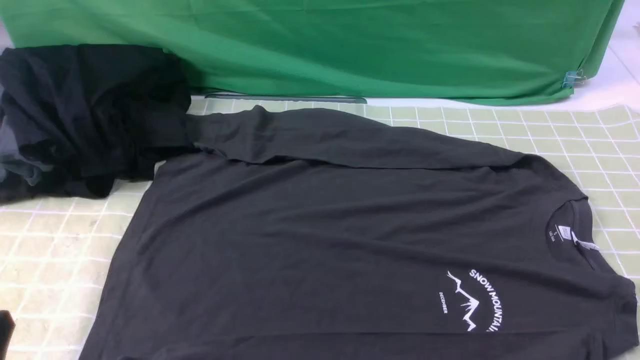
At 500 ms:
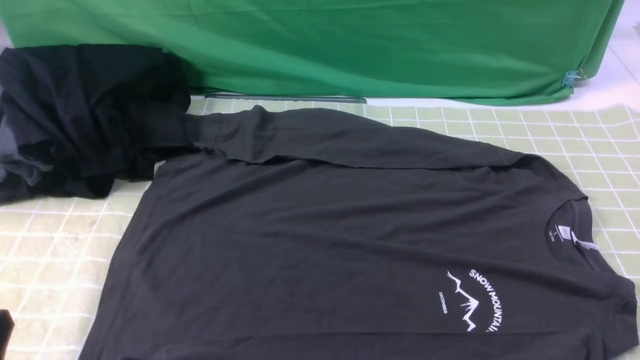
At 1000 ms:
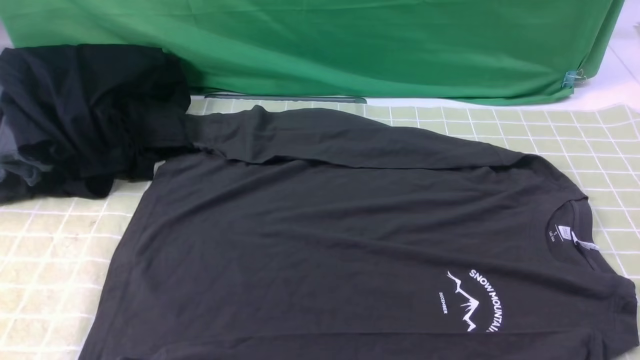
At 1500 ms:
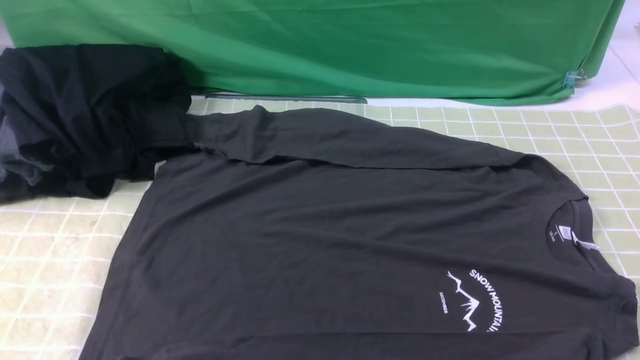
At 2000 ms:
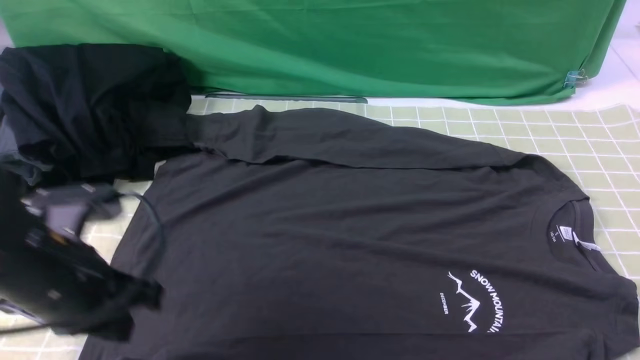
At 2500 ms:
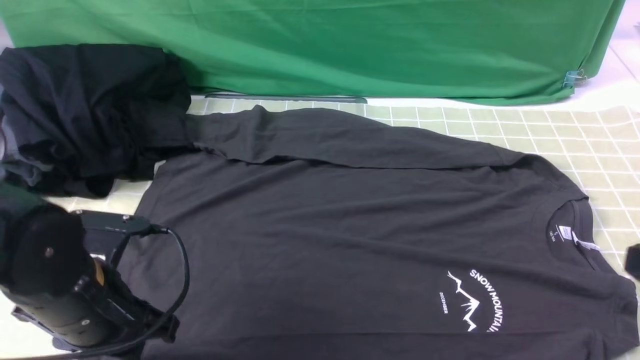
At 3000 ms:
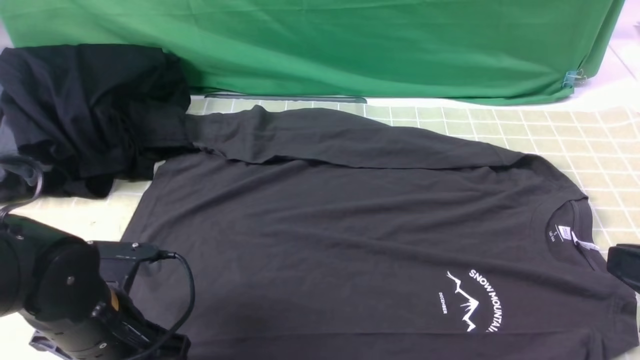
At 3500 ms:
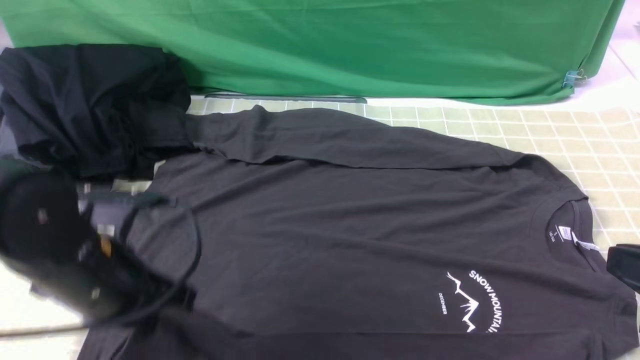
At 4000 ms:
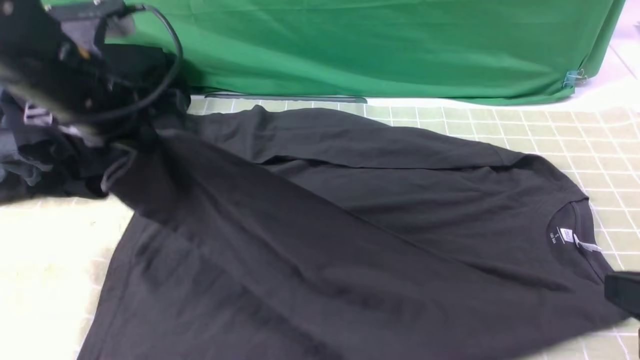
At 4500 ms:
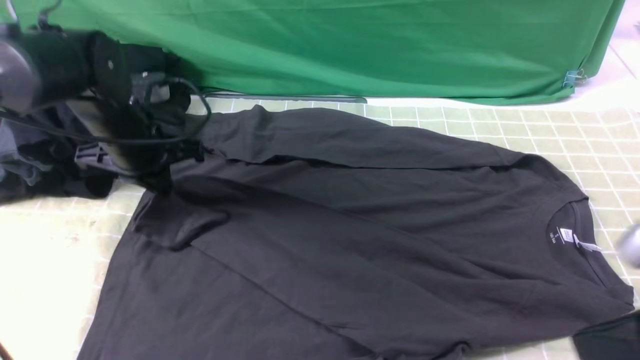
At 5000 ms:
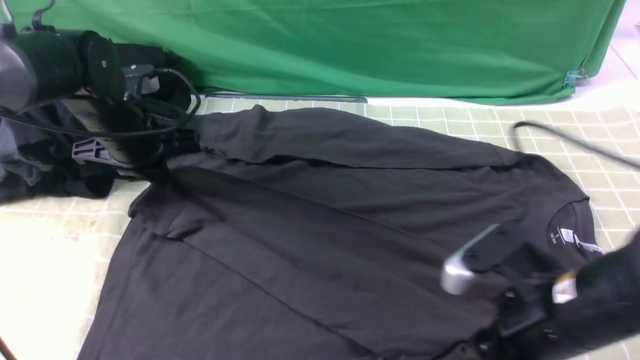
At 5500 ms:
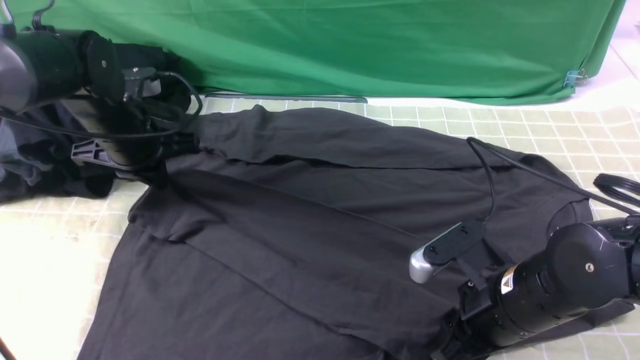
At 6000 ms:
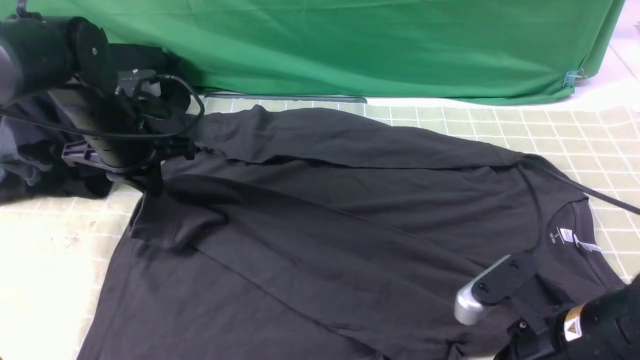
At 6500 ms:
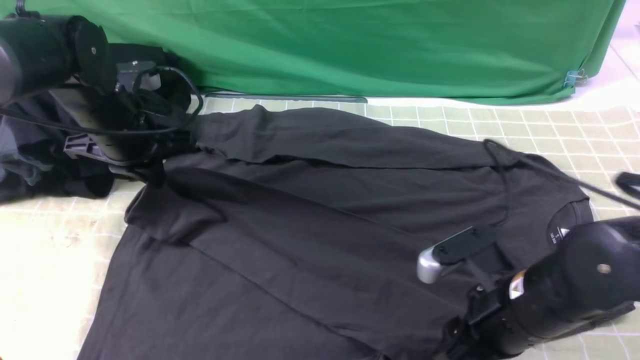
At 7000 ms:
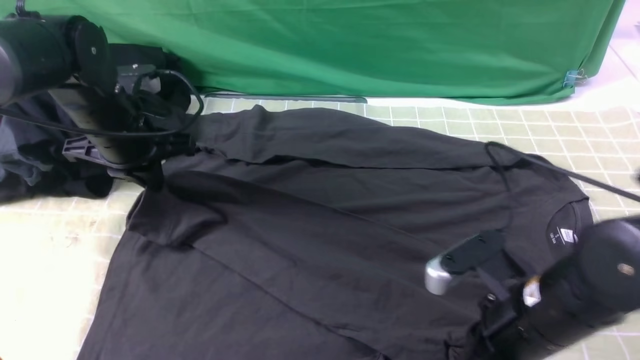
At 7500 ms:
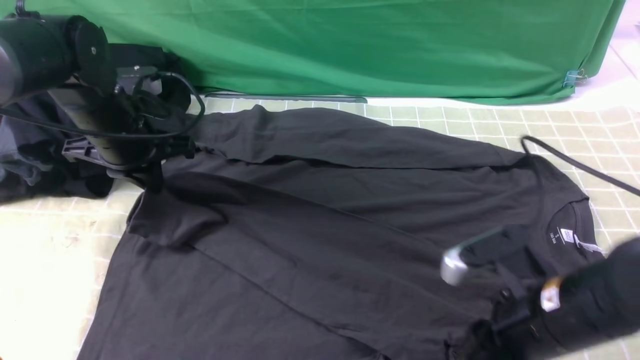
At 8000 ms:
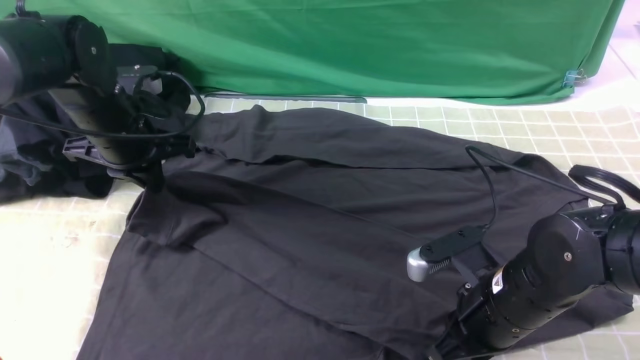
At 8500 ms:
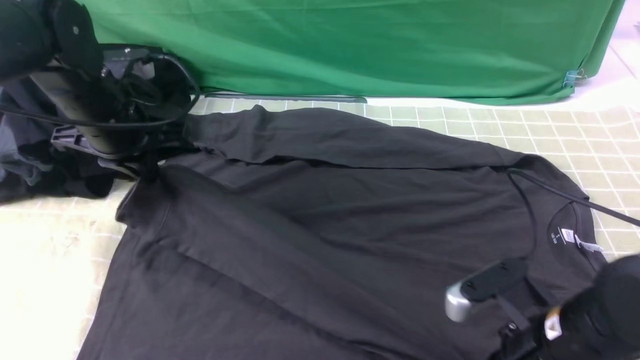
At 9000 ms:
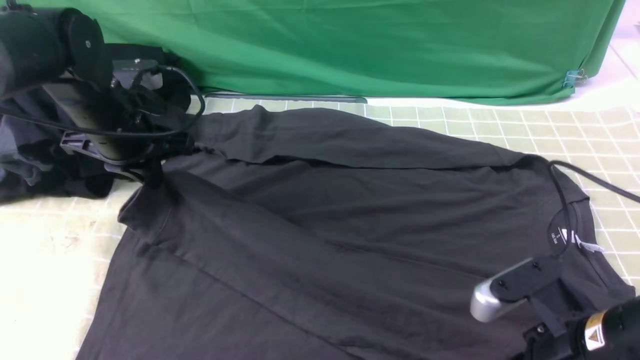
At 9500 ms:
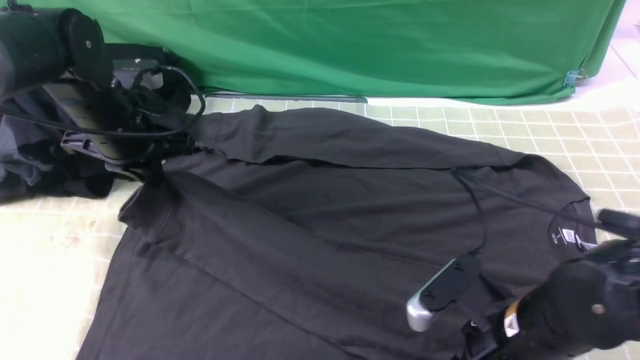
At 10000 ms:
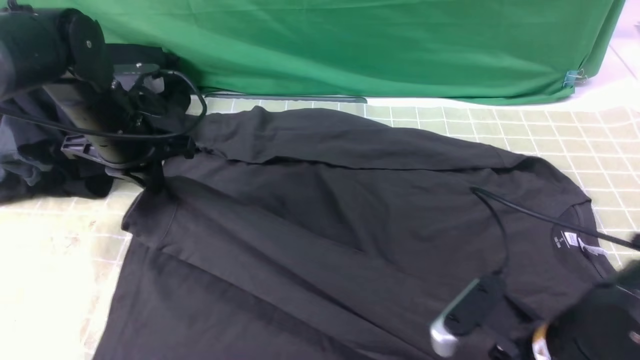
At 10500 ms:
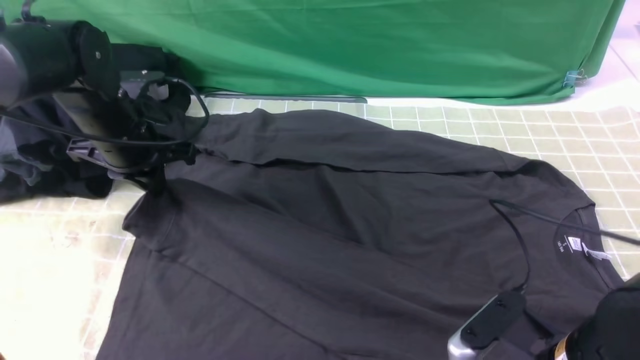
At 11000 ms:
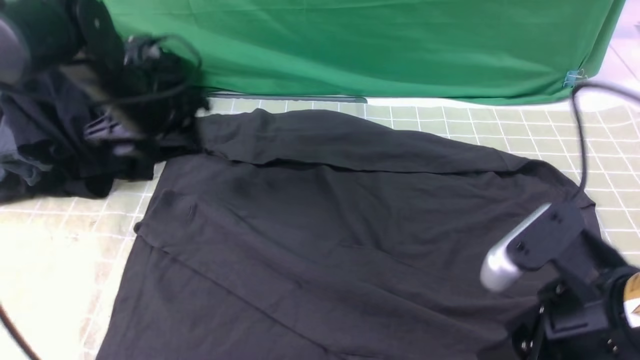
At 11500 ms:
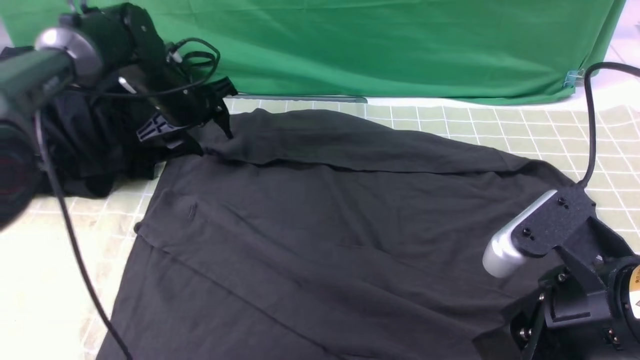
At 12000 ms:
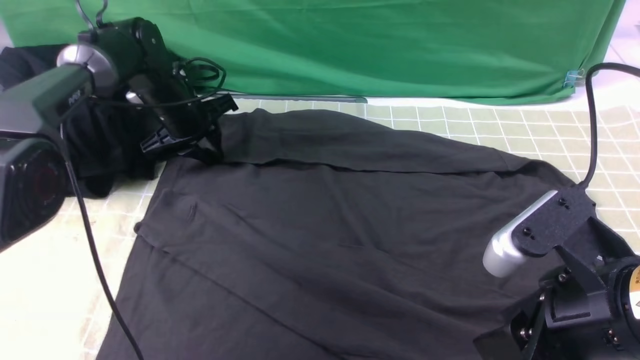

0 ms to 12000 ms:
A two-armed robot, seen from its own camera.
Step, 0 ms to 3000 ms: use the left arm to clamp the cuff closest to it.
Step, 3500 ms to 10500 ms: use the left arm to drag and place the cuff at the centered position on the left edge of the fabric.
0 ms to 2000 ms: The left gripper travels forward by approximately 15 cm, while the right gripper is displaced upward by about 5 cm.
2000 ms to 4000 ms: The right gripper is displaced forward by roughly 5 cm. The left gripper moves forward and upward, about 15 cm, and opens and closes again.
4000 ms to 6000 ms: The right gripper moves downward, to the left and forward, about 15 cm, and opens, then closes once more. The left gripper shifts roughly 10 cm downward and forward.
6000 ms to 8000 ms: The right gripper moves about 5 cm.
8000 ms to 10000 ms: The right gripper shifts roughly 5 cm backward, and opens, then closes again.
10000 ms to 12000 ms: The right gripper travels upward by approximately 10 cm, and opens its fingers. Meanwhile the left gripper moves forward and downward, some 15 cm, and opens, then closes again.

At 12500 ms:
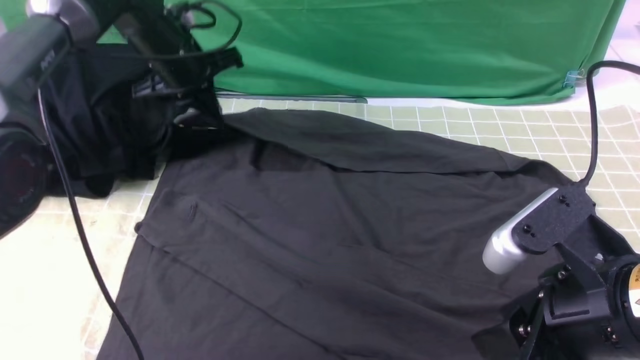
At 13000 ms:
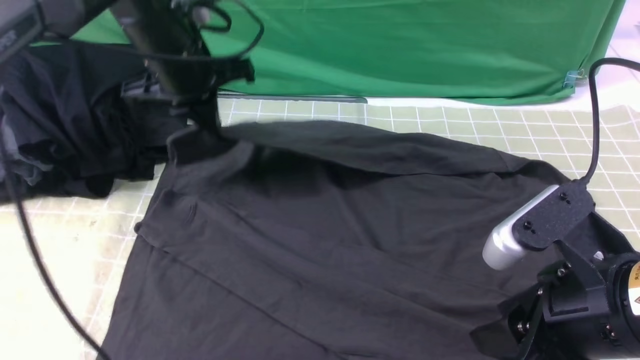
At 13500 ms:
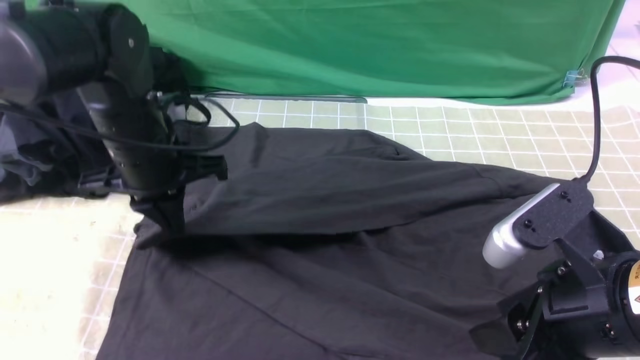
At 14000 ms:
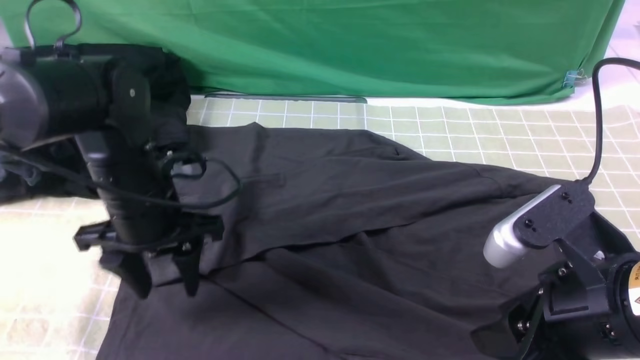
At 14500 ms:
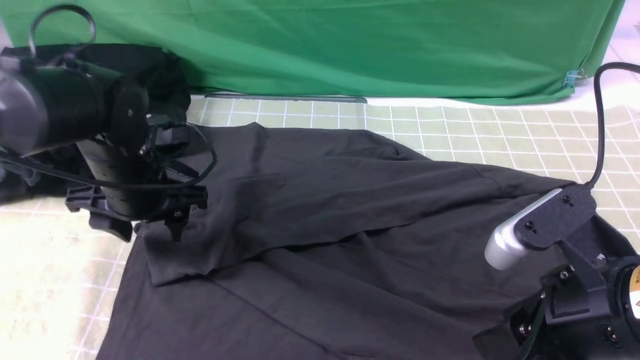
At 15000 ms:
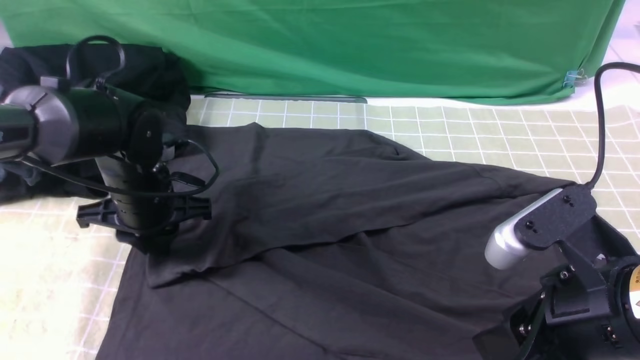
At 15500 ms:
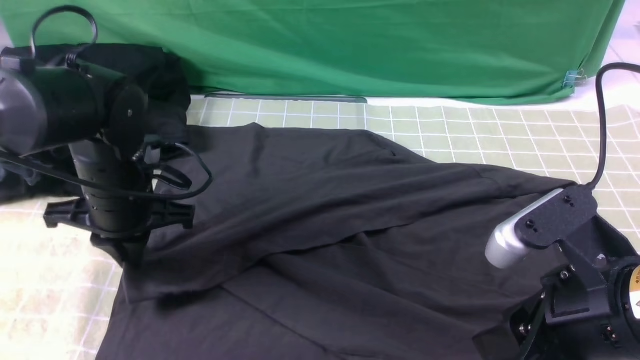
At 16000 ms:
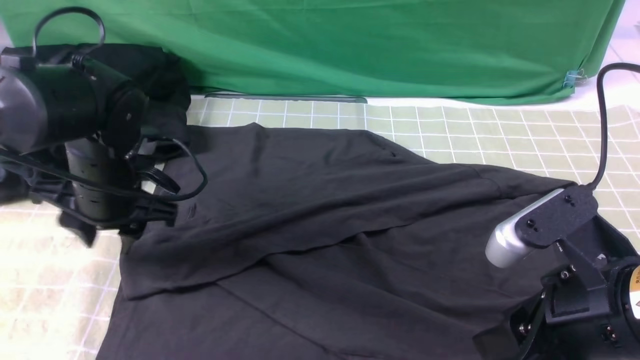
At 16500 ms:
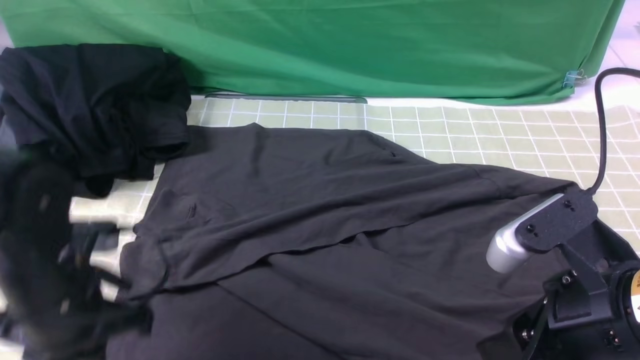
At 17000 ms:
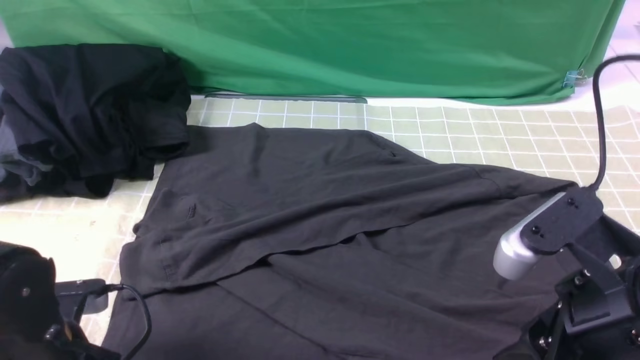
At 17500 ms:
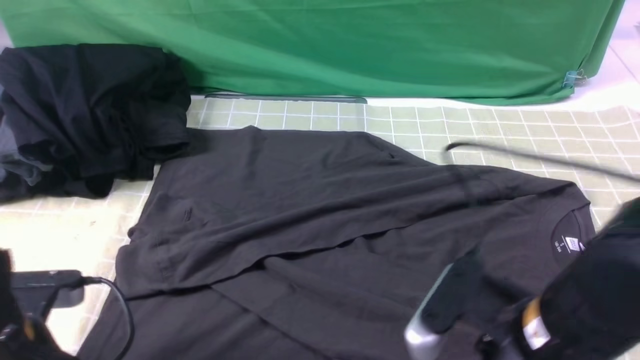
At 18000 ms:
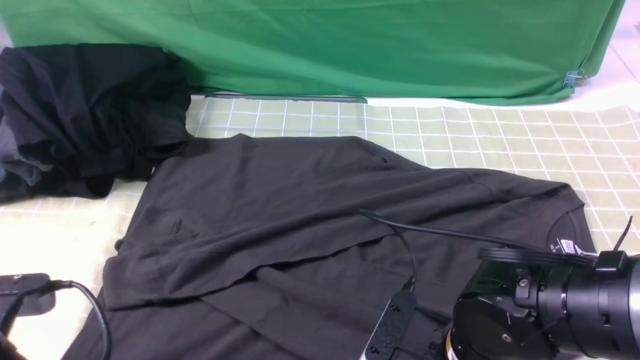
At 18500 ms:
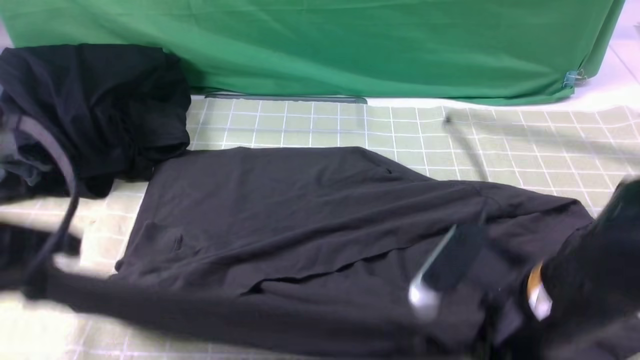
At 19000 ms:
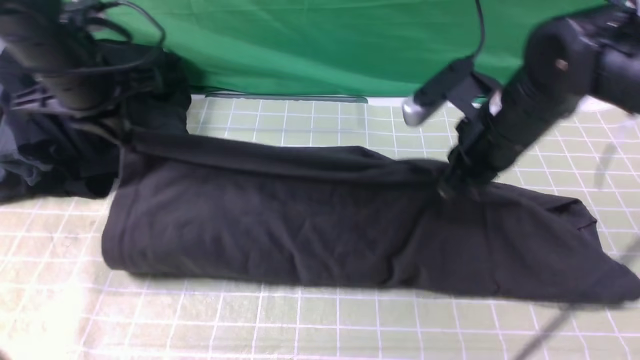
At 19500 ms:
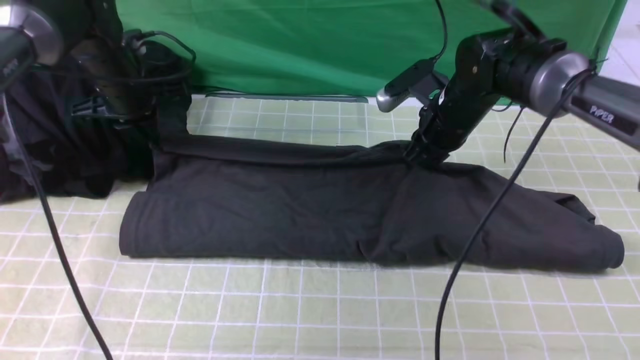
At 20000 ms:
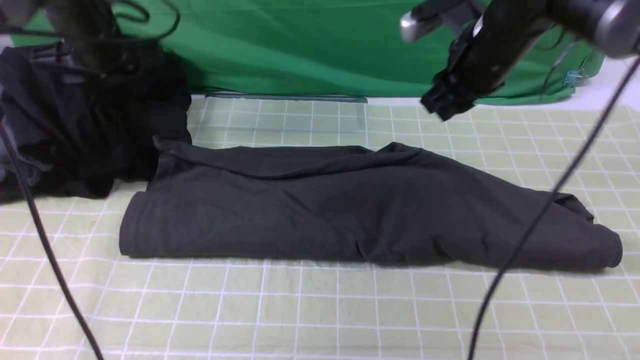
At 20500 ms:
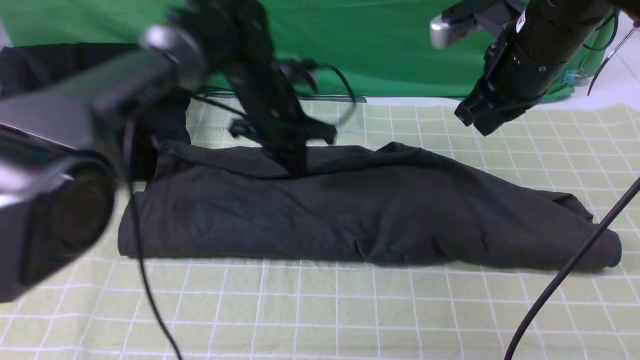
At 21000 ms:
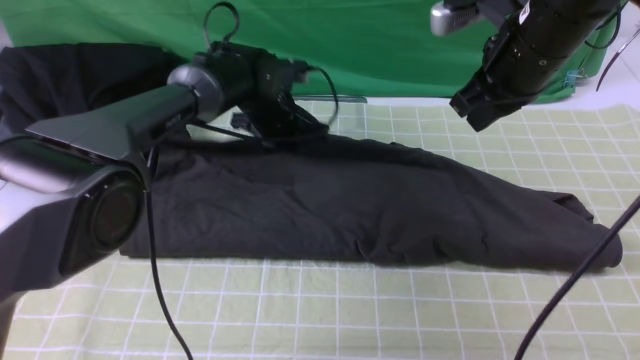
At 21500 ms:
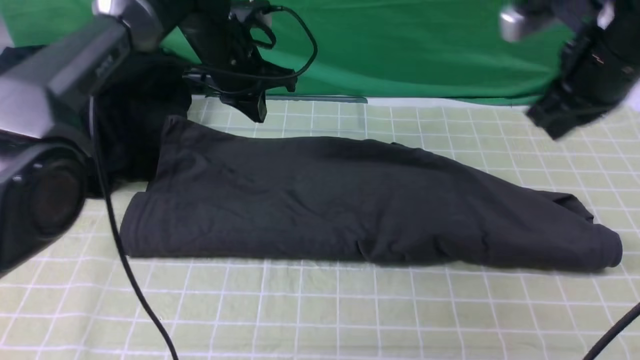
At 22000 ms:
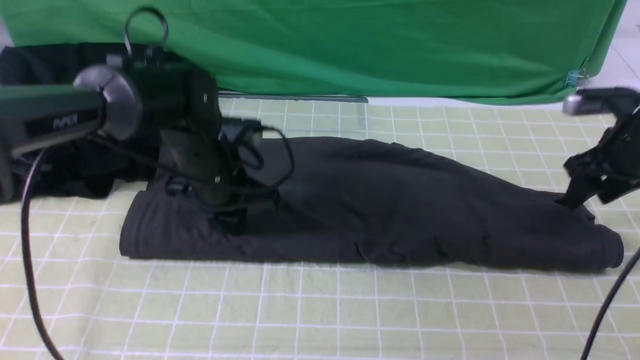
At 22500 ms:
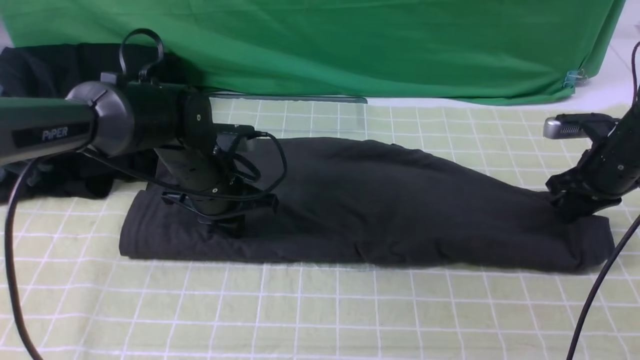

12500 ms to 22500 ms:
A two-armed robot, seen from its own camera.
Step, 12500 ms to 16000 ms: use the left arm to drag and drop the cuff onto the cuff closest to the left arm.
Step, 16500 ms to 17500 ms: use both arms simultaneously to clamp the lower edge of the clothing fabric.
Step, 18000 ms to 21000 ms: use both arms to drag the lower edge of the fabric forward and fold it over the upper edge.
12500 ms to 14500 ms: The left gripper is displaced backward and downward by roughly 15 cm, and opens its fingers.
14500 ms to 16500 ms: The left gripper moves backward, approximately 15 cm, and closes.
16500 ms to 18500 ms: The left gripper moves upward, roughly 15 cm, and closes up. The right gripper travels downward and back again, about 10 cm each way, and closes up.
18500 ms to 20500 ms: The right gripper is displaced forward and upward by roughly 20 cm. The left gripper travels forward, to the right and downward by approximately 35 cm, and opens and closes again.
20500 ms to 22500 ms: The right gripper shifts some 20 cm to the right and downward, and opens, then closes once more; the left gripper shifts some 10 cm backward and to the left.
